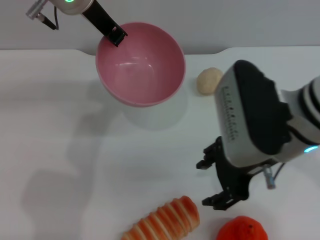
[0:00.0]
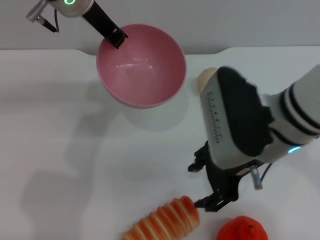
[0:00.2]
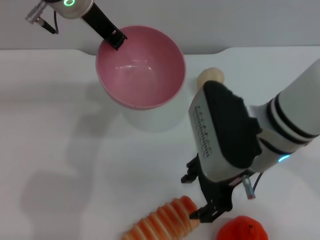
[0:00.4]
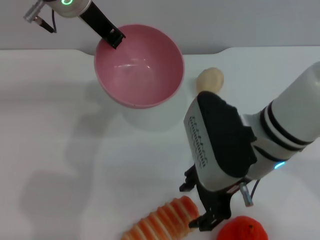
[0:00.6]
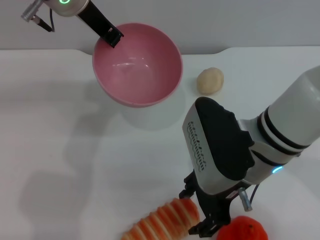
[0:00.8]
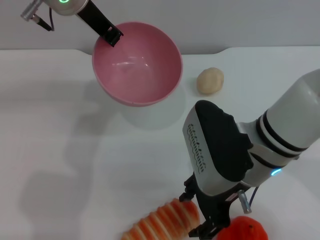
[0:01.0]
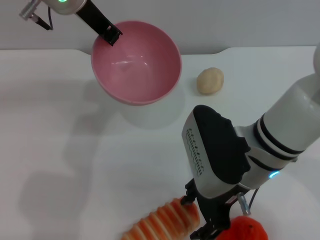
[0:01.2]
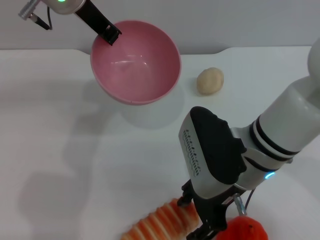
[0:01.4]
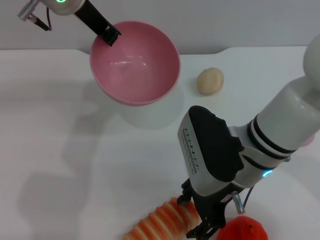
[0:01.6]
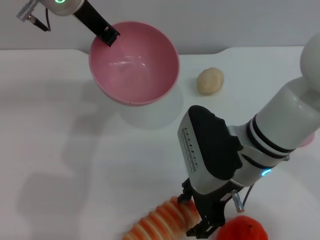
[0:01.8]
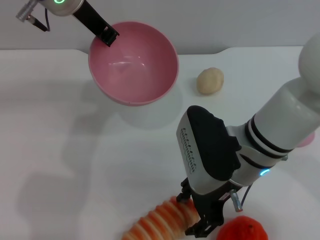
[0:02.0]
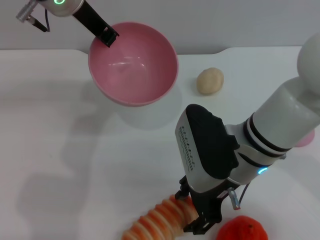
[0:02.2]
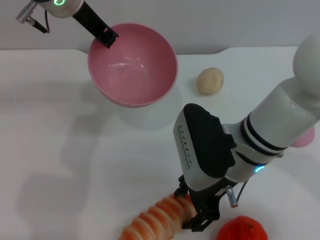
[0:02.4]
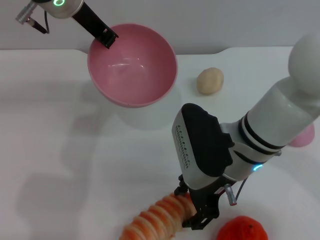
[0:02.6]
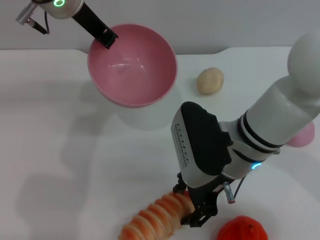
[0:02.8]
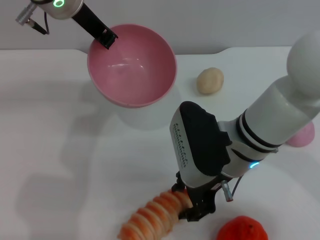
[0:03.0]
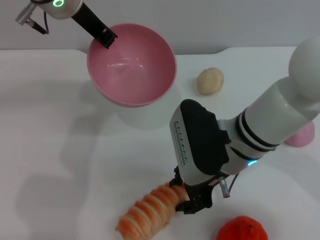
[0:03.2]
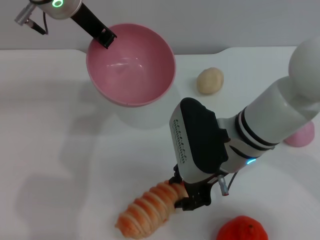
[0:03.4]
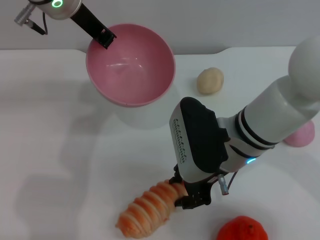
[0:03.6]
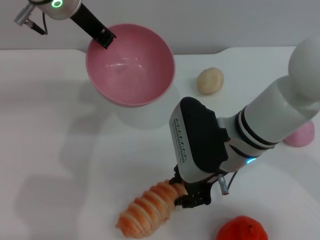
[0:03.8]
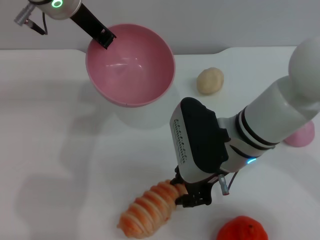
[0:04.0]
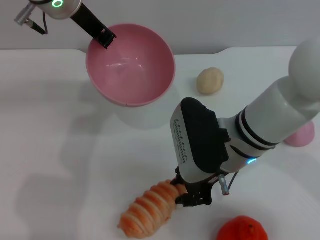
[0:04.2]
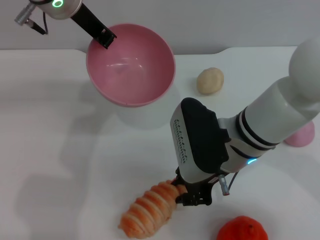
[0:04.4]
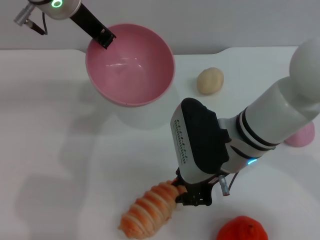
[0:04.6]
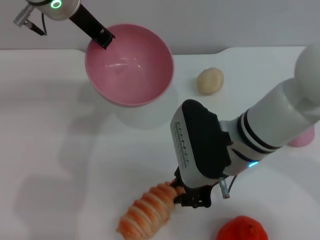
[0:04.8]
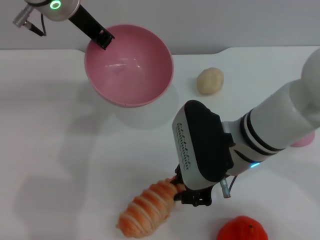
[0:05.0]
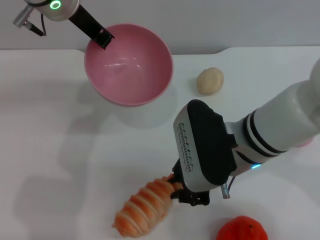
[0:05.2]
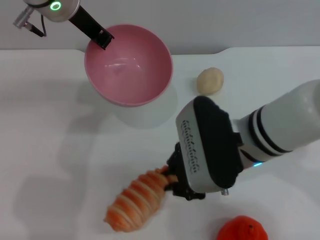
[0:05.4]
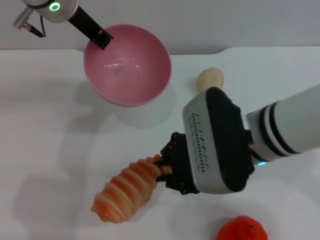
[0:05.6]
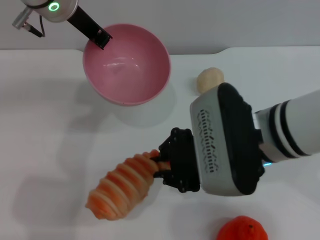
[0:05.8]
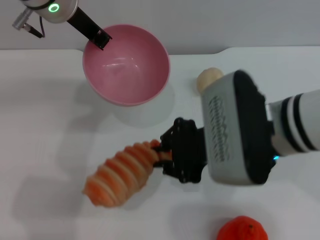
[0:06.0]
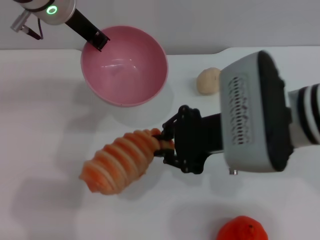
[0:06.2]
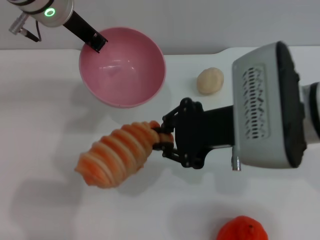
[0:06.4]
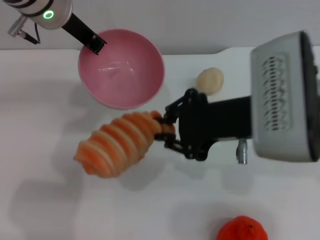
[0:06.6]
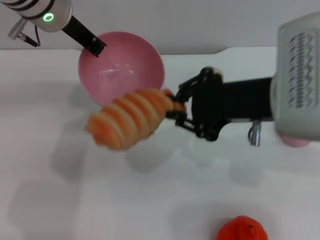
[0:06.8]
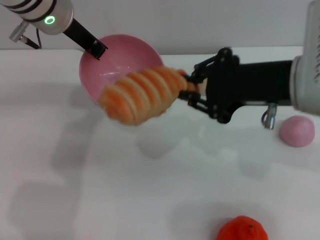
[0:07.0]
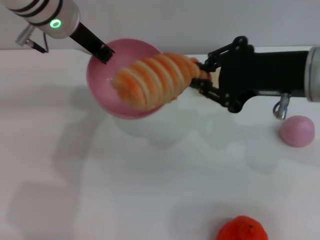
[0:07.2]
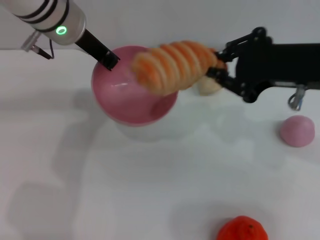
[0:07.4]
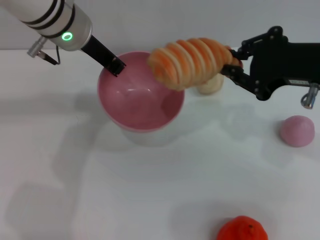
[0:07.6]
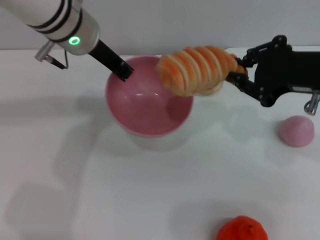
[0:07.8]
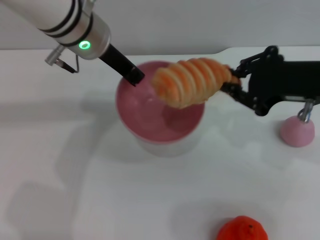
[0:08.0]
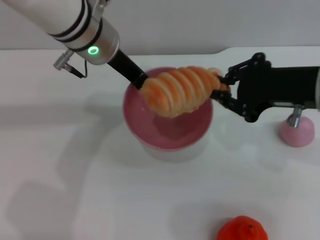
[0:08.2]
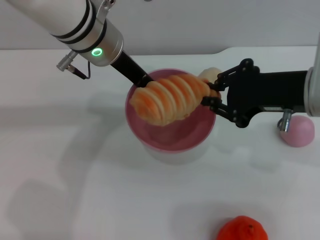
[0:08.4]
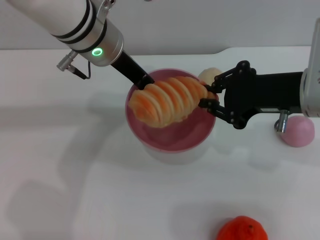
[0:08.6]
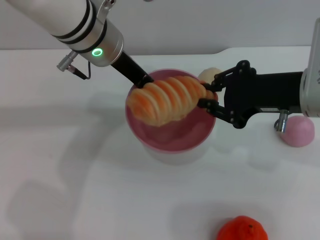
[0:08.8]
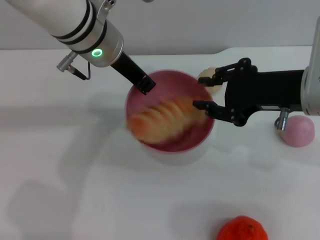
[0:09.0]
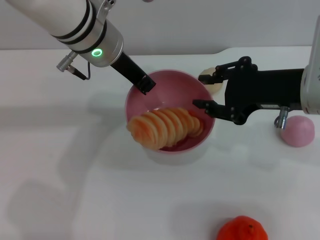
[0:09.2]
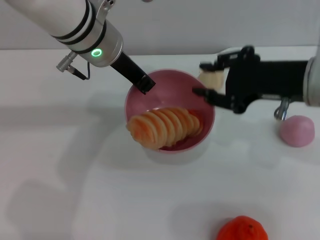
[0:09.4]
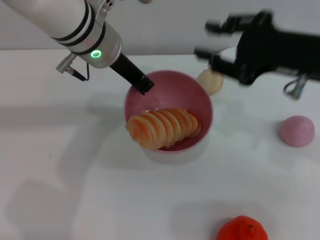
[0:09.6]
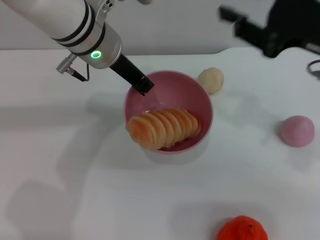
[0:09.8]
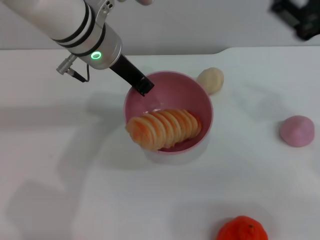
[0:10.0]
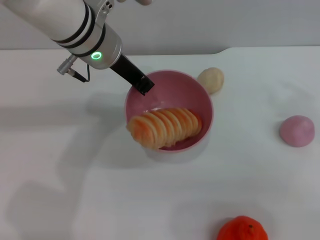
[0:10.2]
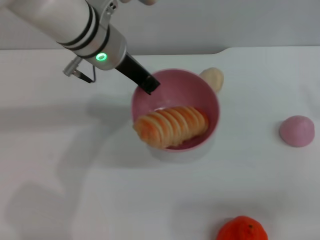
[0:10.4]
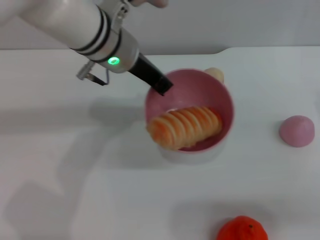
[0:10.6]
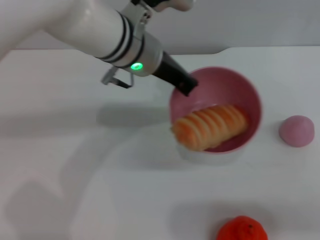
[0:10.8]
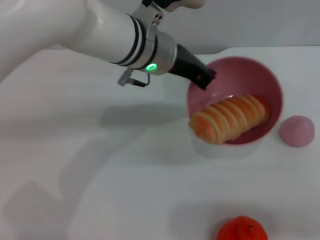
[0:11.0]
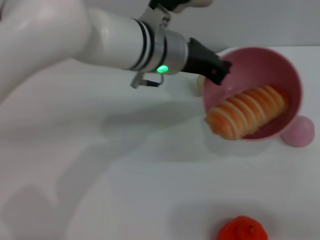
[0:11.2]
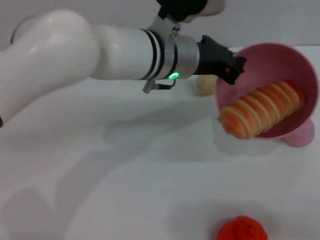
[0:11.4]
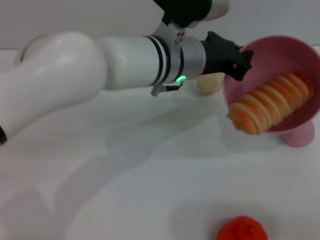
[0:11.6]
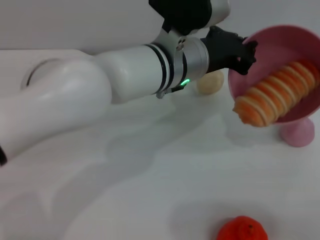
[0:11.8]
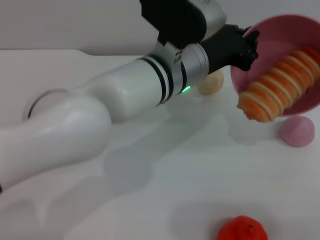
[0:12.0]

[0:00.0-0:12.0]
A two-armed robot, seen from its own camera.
Task of the whole recording: put the bread into the pink bowl and pour it out repeatedly.
Step, 0:00.0 to 0:05.4: Pick up the bread with the right gripper.
Step, 0:05.8 to 0:09.2: Place the bread into the bowl.
0:00.0 to 0:01.6: The right gripper goes some 5 cm downward.
0:01.6 to 0:03.0: The grippers make only small movements.
0:03.0 to 0:04.4: The right gripper closes.
0:04.4 to 0:06.0: The right gripper goes roughly 5 cm upward.
0:06.0 to 0:07.6: The right gripper is displaced to the right by about 10 cm.
0:09.0 to 0:10.4: The right gripper heads to the right, covering approximately 15 cm.
0:10.4 to 0:12.0: The right gripper shifts by approximately 5 cm. Meanwhile the left gripper heads to the right and backward, covering roughly 10 cm.

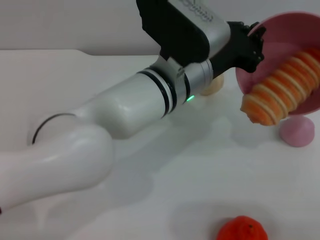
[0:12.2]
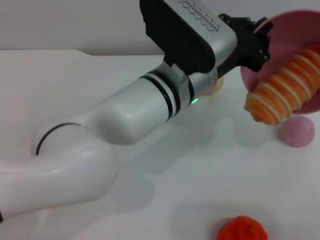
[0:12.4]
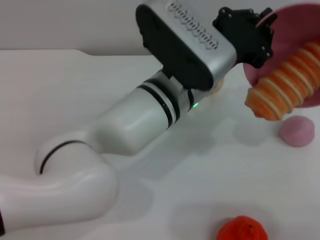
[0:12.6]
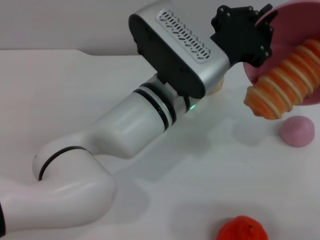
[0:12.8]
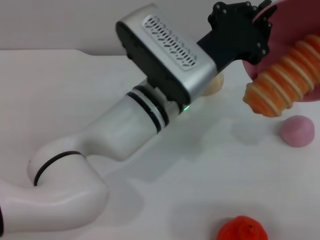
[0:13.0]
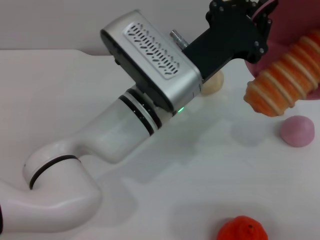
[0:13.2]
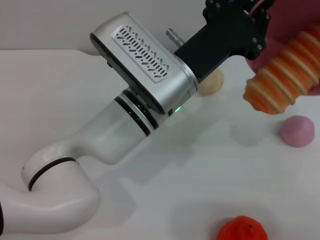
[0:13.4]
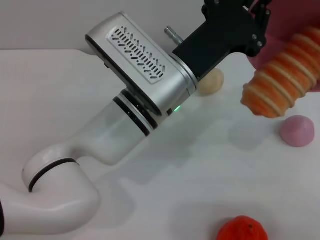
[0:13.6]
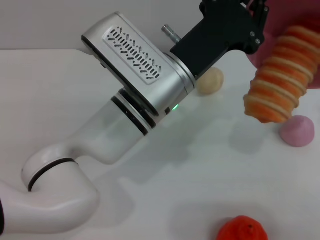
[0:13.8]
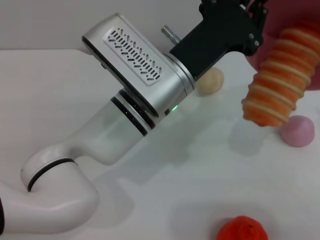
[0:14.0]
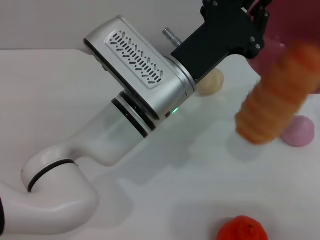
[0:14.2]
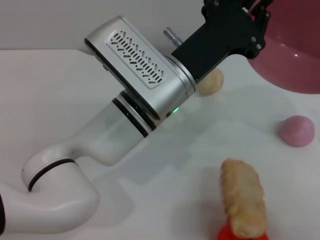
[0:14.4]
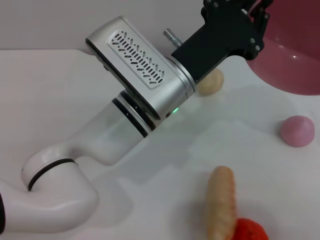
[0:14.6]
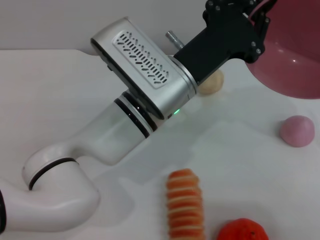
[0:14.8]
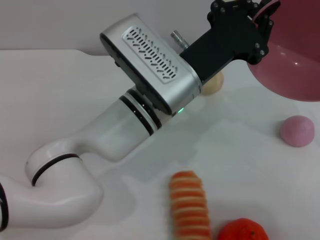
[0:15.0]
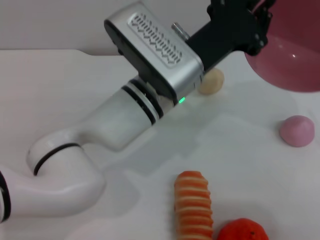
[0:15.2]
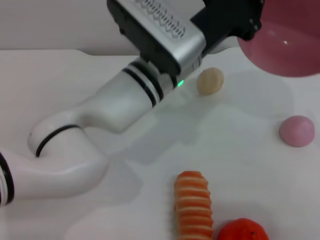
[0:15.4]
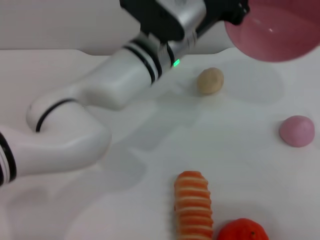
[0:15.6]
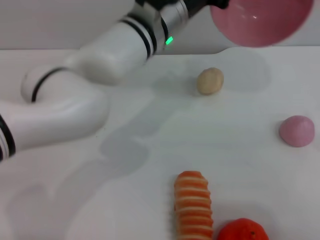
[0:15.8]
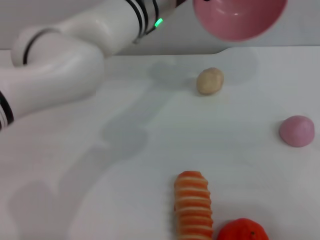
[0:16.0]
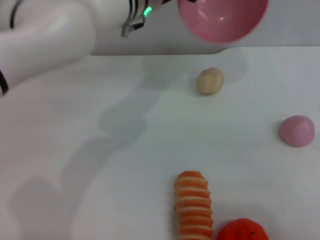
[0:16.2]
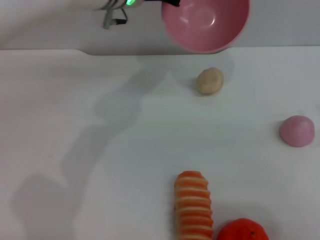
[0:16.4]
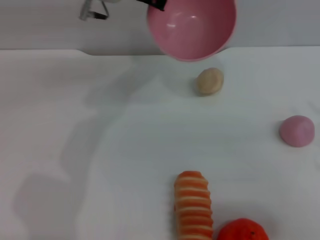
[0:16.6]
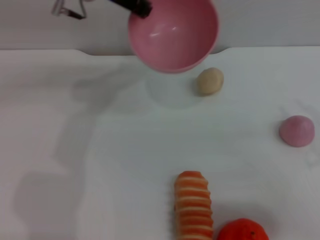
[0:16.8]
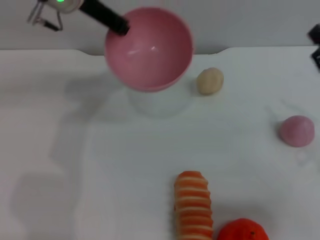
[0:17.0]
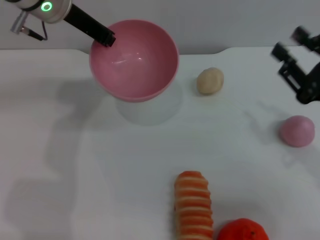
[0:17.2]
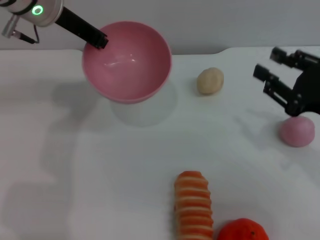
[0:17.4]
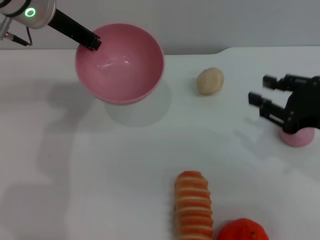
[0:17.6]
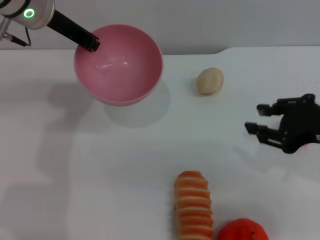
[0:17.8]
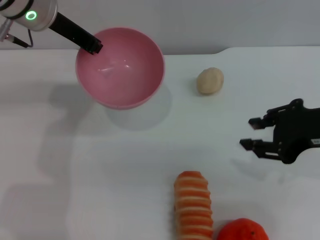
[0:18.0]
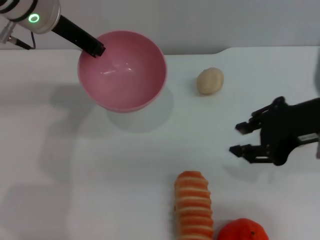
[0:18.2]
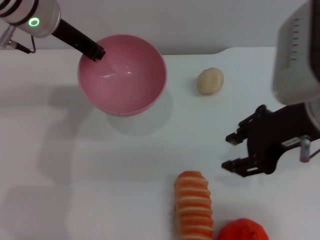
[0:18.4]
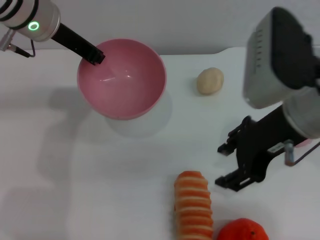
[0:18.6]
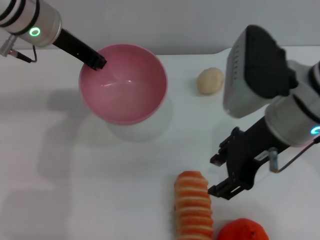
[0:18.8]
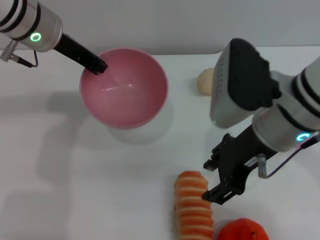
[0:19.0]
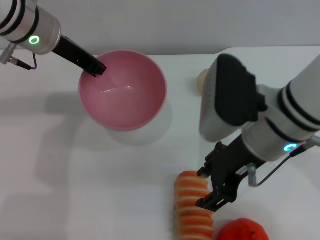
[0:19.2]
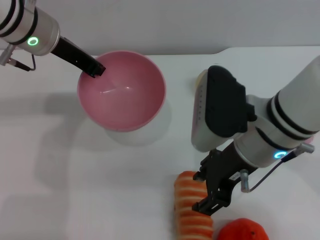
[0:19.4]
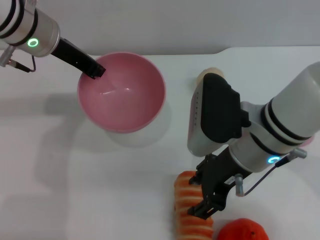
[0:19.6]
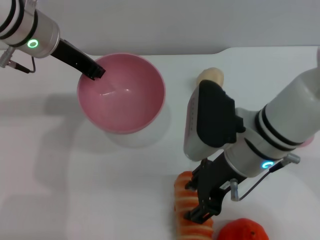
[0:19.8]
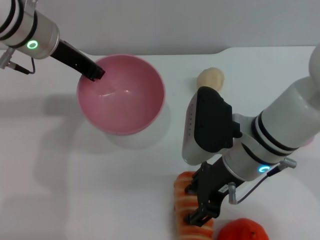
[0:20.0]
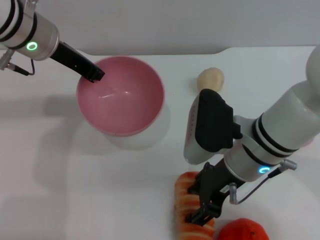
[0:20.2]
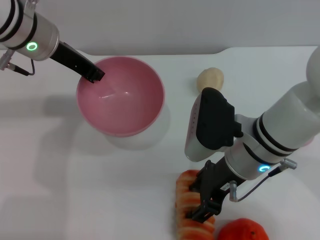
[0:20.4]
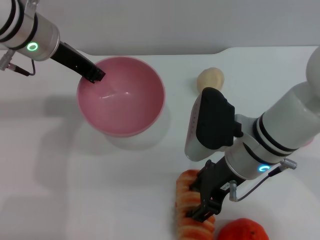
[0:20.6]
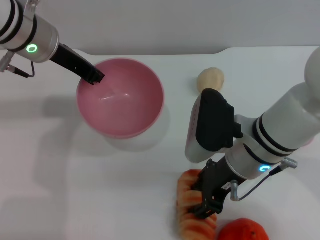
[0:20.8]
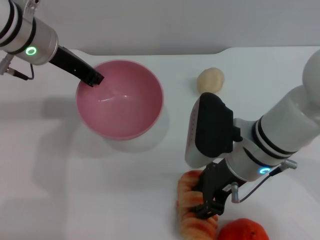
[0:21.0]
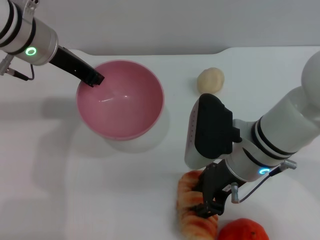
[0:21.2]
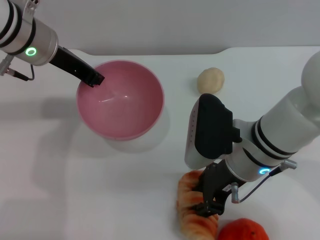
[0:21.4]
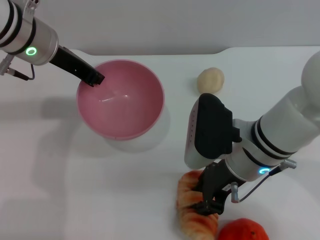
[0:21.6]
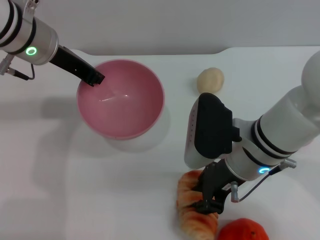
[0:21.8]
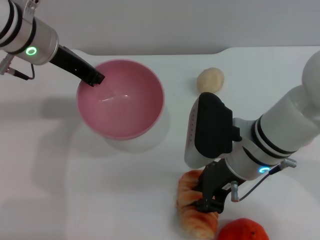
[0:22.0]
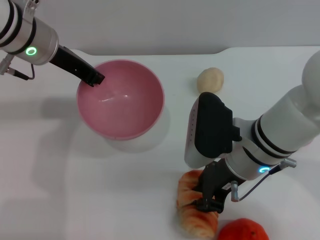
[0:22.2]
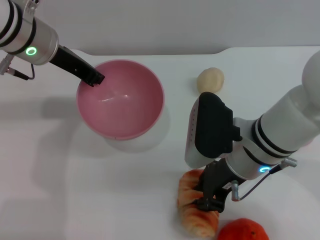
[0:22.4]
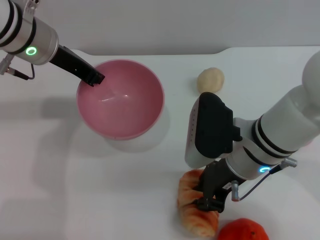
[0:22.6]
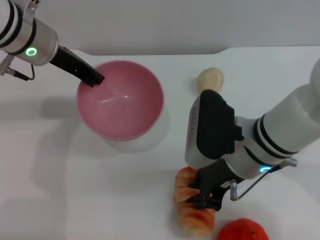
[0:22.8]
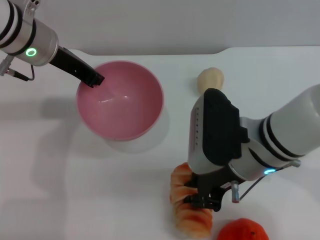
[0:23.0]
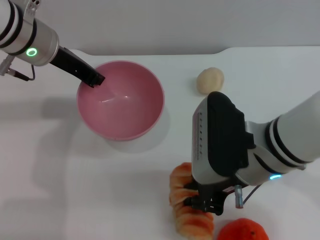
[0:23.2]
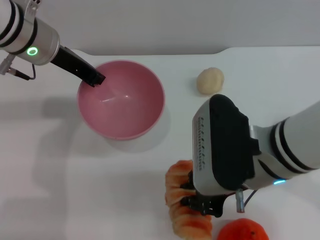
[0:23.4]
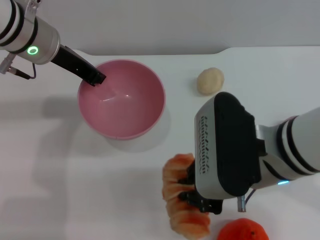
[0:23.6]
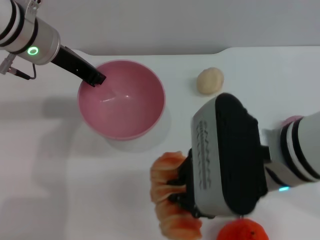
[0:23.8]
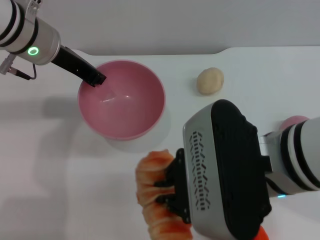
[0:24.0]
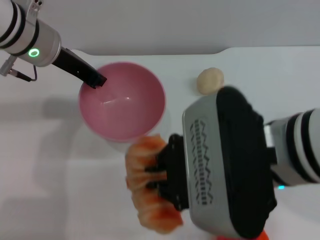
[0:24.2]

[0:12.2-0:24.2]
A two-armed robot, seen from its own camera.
Task of the whole recording: put the bread into the pink bowl and pour it out repeatedly.
Step, 0:12.2 to 0:14.8: Pour the bread out of the bowl.
Step, 0:15.0 to 0:23.0: Pick up the bread with the right gripper.
0:15.2 to 0:16.6: The left gripper is displaced forward, upward and to the left by about 20 cm.
0:16.6 to 0:18.2: The right gripper travels upward, to the left and forward by some 15 cm, while the left gripper goes some 10 cm to the left.
0:18.2 to 0:19.8: The right gripper goes roughly 15 cm to the left and downward, and opens.
0:19.8 to 0:21.2: The grippers move only a little.
0:21.2 to 0:22.6: The right gripper closes up.
0:22.6 to 0:24.2: The right gripper heads upward and backward, covering approximately 15 cm.
